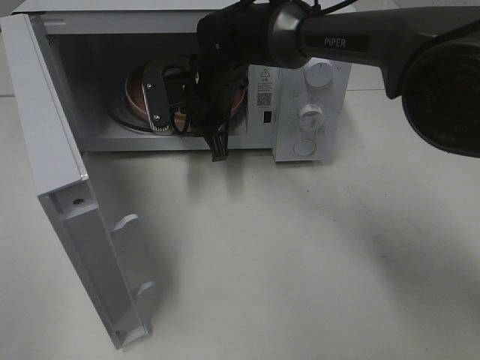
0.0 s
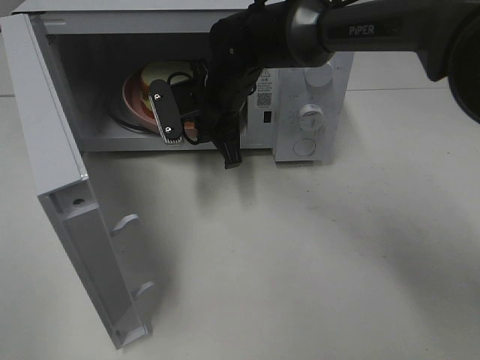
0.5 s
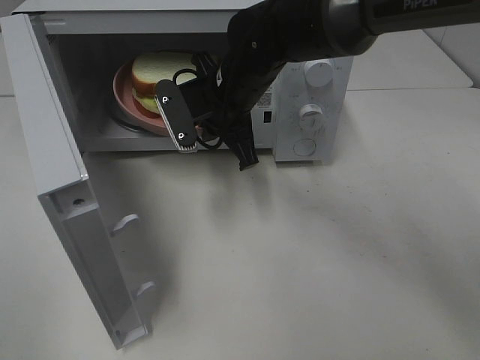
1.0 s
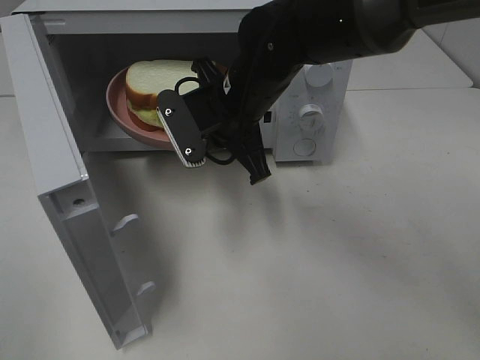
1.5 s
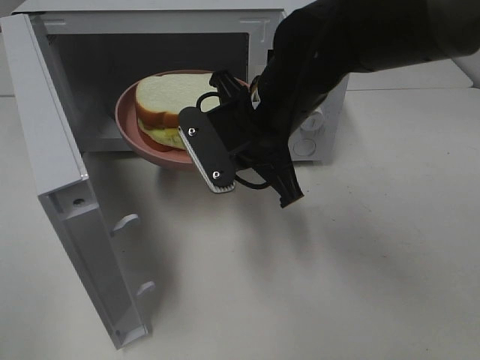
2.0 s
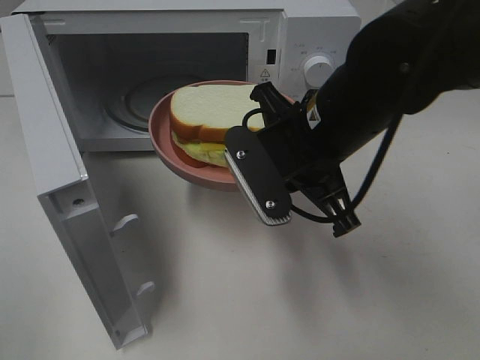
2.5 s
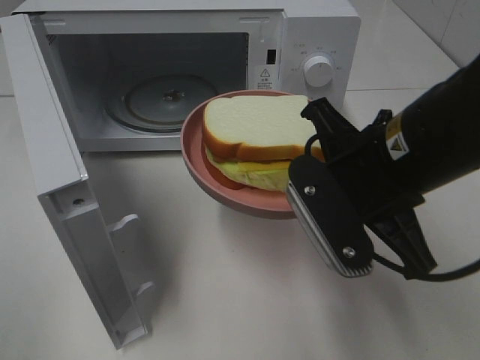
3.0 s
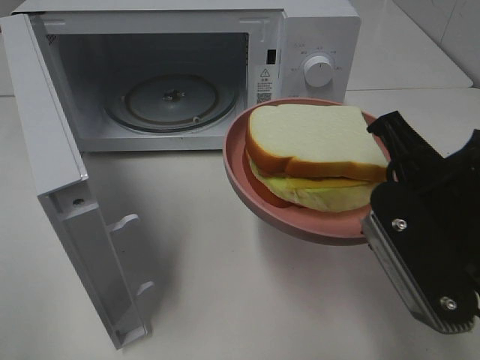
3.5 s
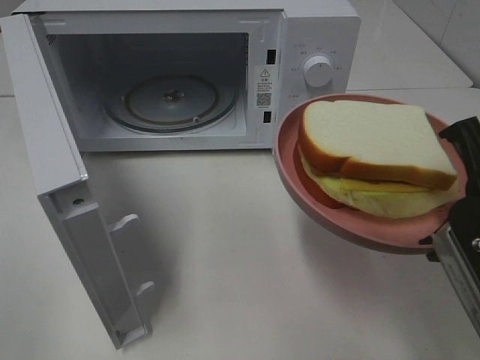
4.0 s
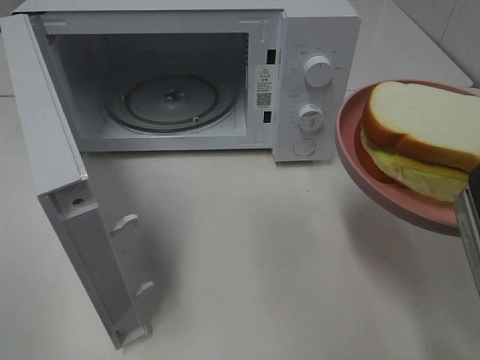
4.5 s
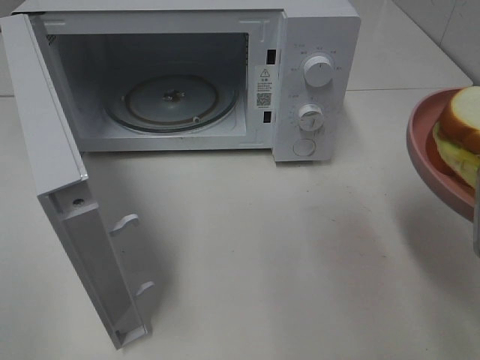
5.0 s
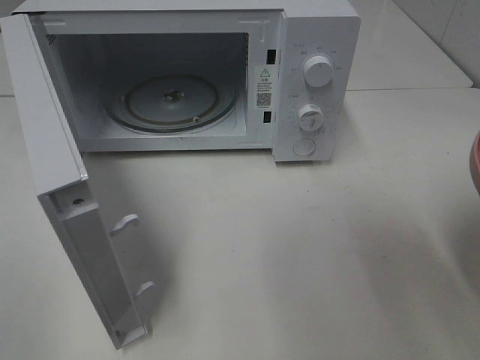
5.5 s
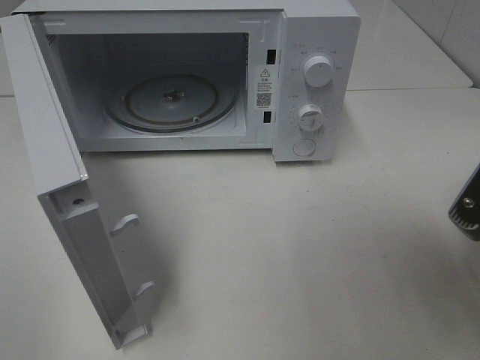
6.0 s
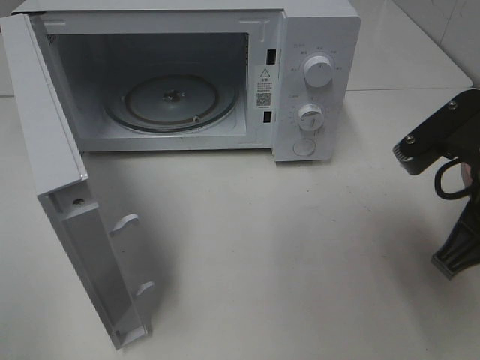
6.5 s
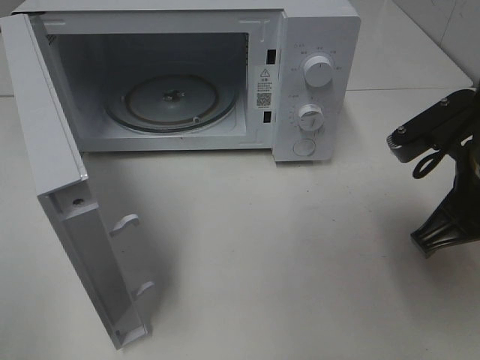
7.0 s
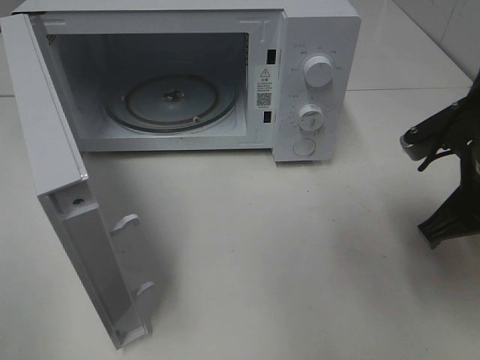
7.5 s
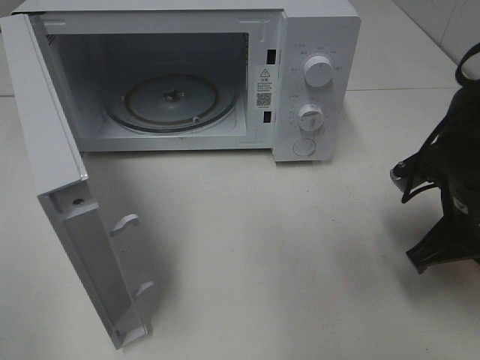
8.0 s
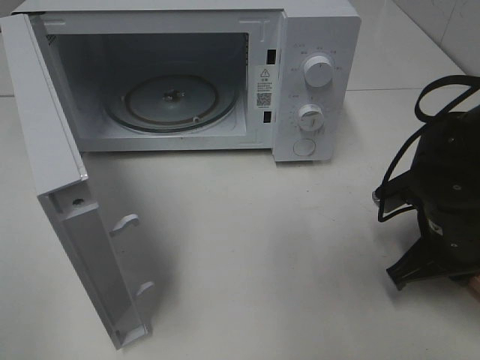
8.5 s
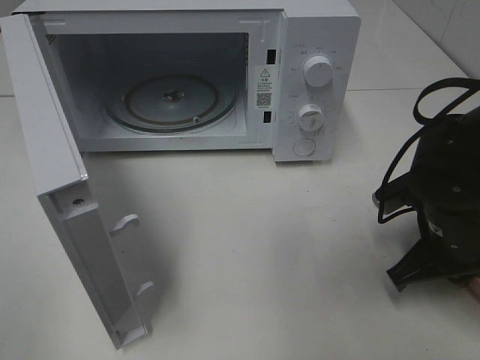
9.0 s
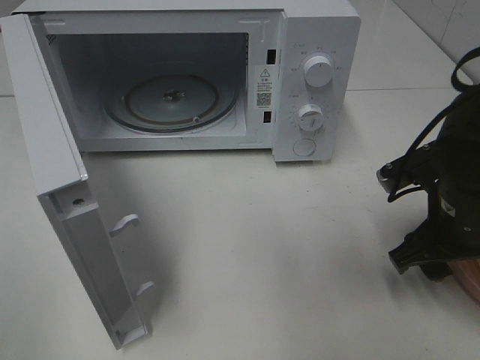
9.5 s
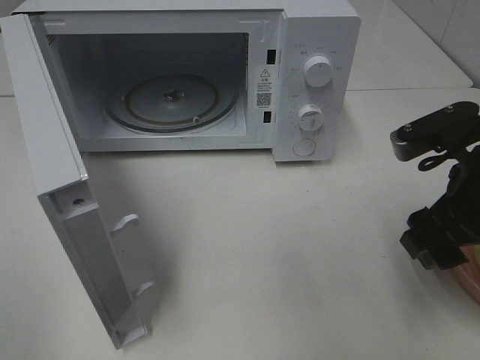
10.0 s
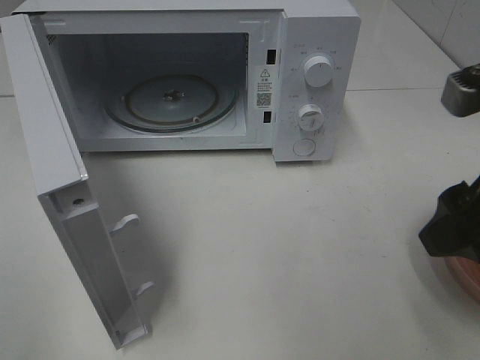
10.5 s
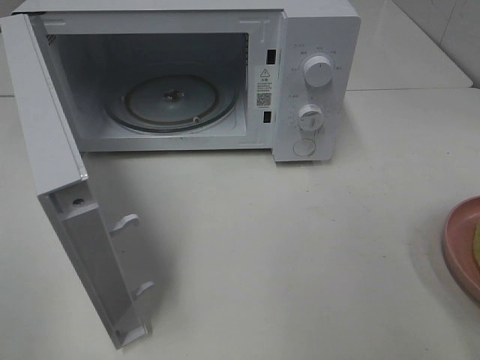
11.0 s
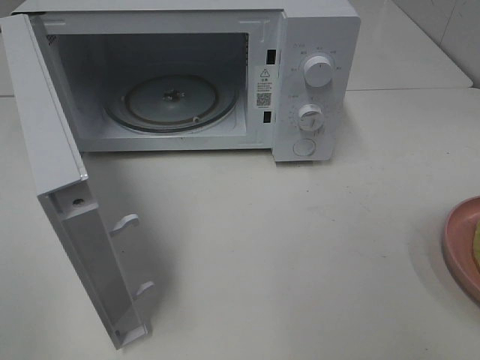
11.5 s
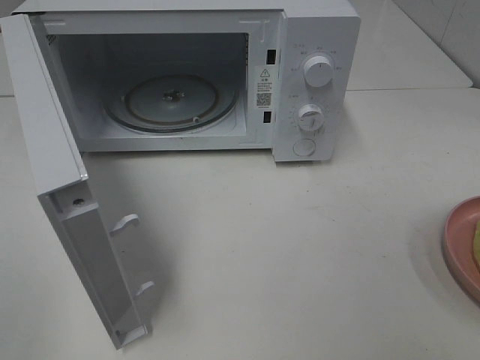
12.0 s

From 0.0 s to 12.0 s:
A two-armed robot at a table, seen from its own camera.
Task of the whole recording: Heat Sandwich.
Step, from 0.0 s to 10.0 s: Right hand: place the plate on the table.
From 0.0 s to 2.0 s: The right gripper shifts approximately 15 cm backward and to the right.
From 2.0 s to 4.0 s: The right gripper shifts about 25 cm backward and to the right.
From 6.0 s to 8.0 s: The right gripper shifts roughly 15 cm forward and downward.
From 8.0 s to 10.0 s: The right gripper goes approximately 5 cm upward, and opens up.
From 10.0 s to 12.0 s: The right gripper travels backward, upward and to the right by approximately 25 cm.

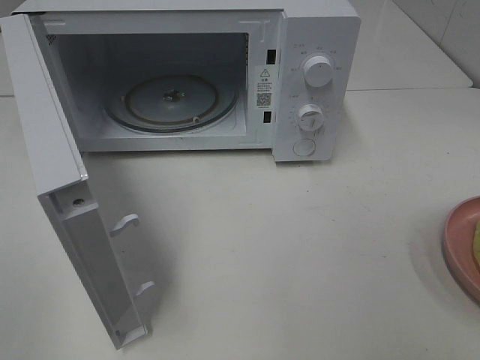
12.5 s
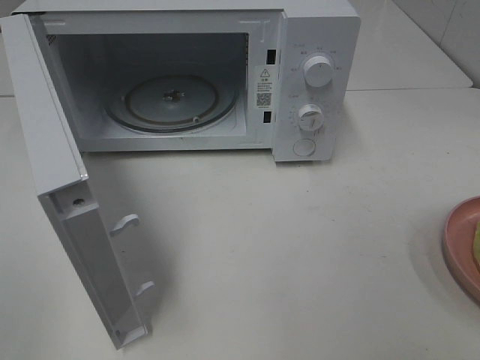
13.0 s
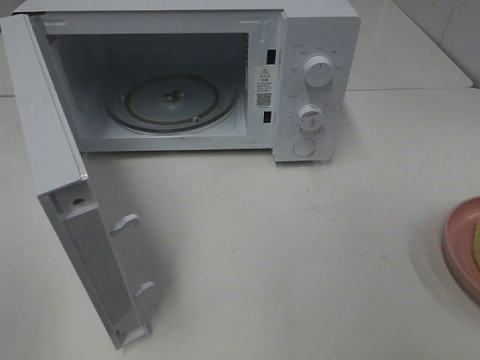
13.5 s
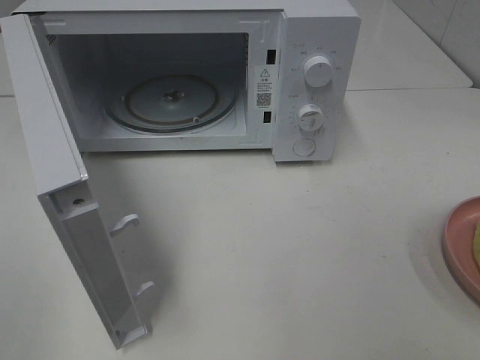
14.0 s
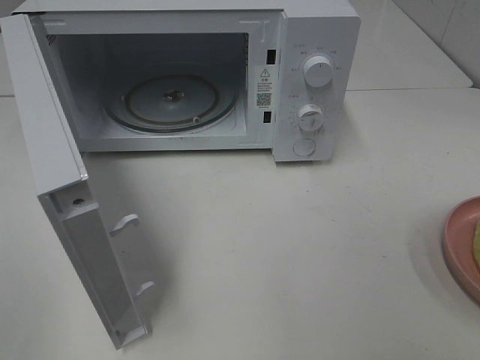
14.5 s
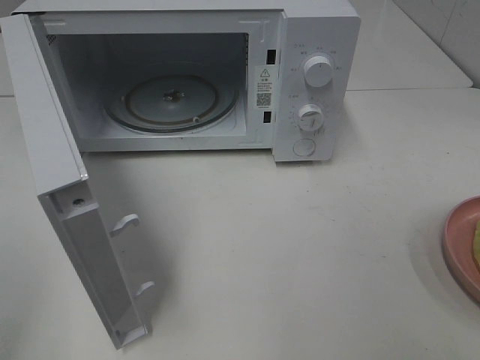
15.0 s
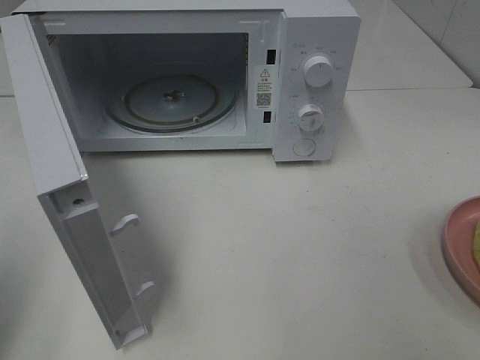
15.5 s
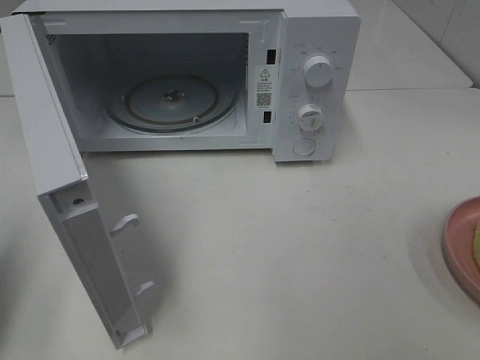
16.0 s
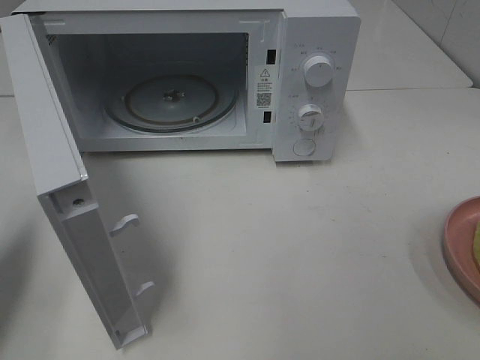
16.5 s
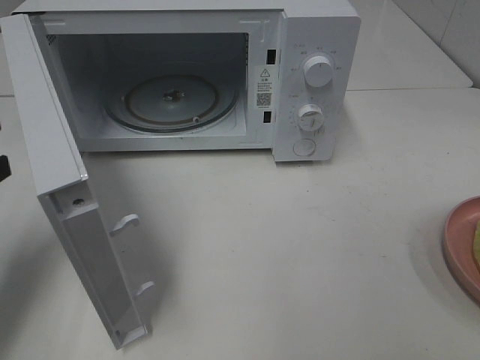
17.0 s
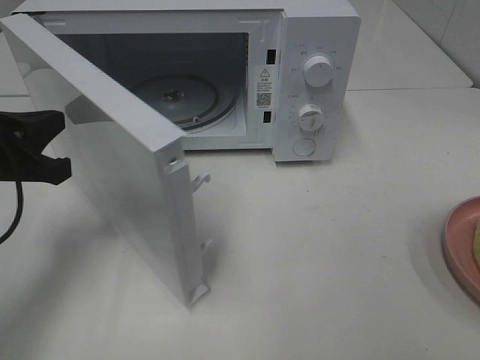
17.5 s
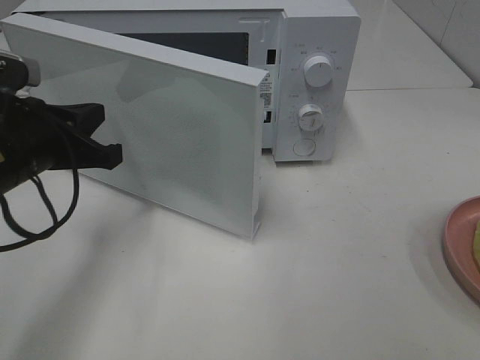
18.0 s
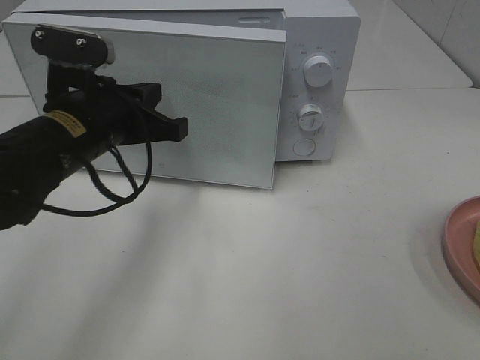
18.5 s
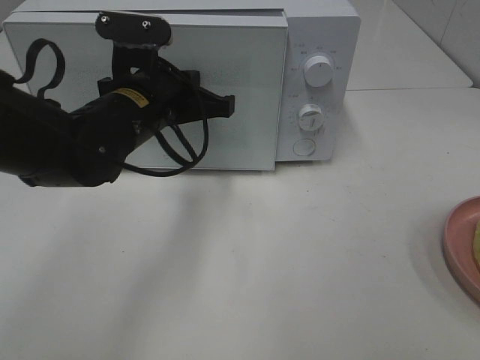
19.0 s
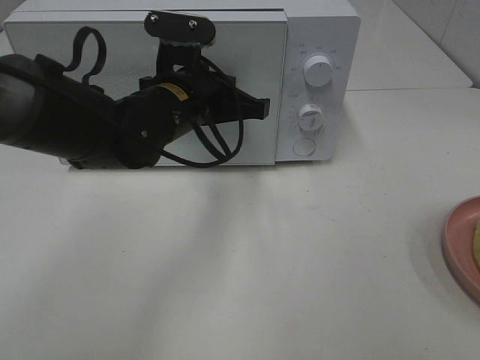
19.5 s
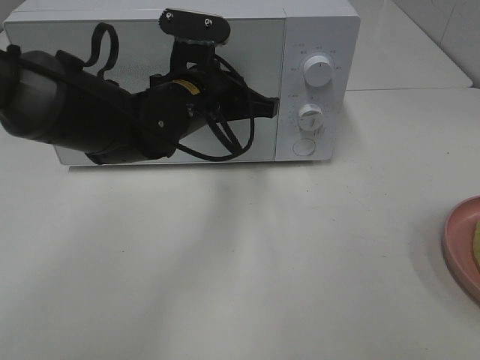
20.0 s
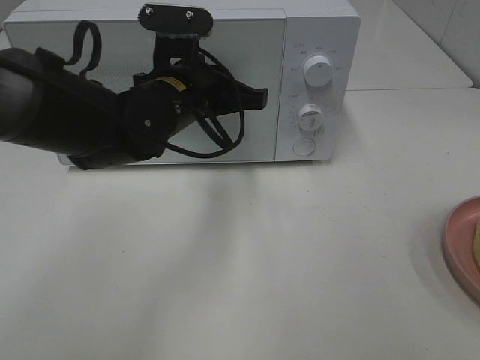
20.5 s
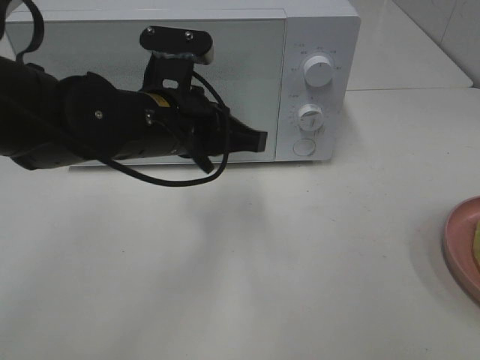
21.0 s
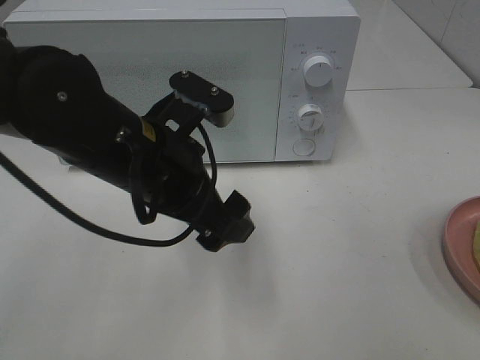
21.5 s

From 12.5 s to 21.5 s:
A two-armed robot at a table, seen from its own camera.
Task of the whole recording: Heat Sandwich.
Step, from 12.5 s to 20.0 s: Left hand: close the microwave door.
From 12.5 s to 14.5 s: Both grippers stay about where they are.
From 14.5 s to 17.0 s: The left gripper is displaced forward and downward by approximately 25 cm, and closes up.
From 17.0 s to 19.5 s: The left gripper moves to the right and forward, some 25 cm.
From 19.5 s to 21.5 s: The left gripper is displaced backward by some 10 cm, and opens its fingers.

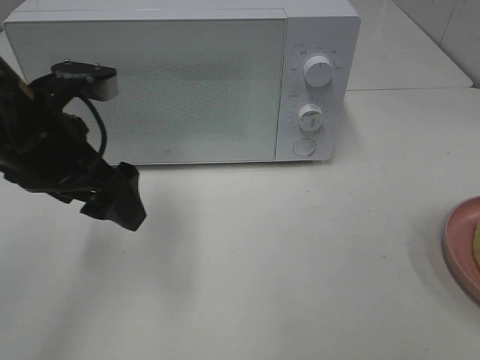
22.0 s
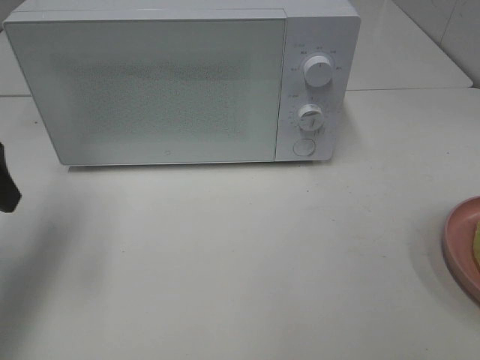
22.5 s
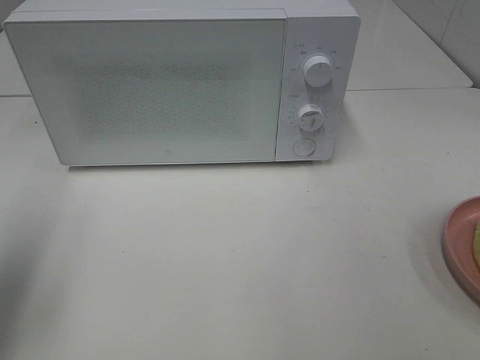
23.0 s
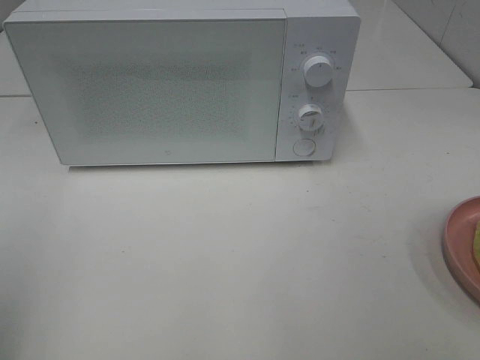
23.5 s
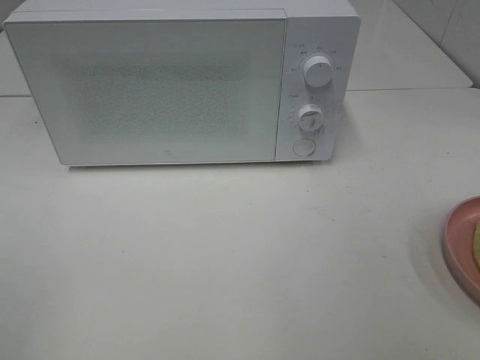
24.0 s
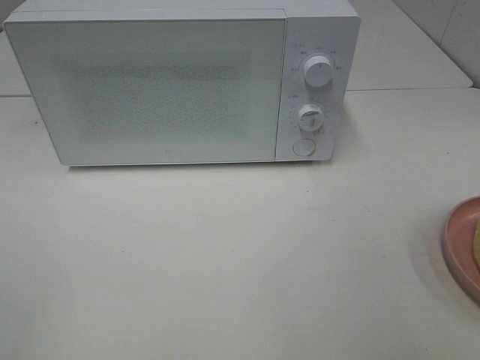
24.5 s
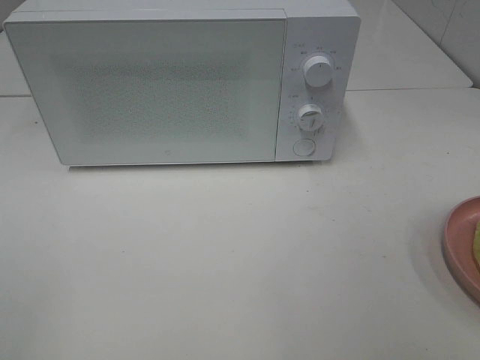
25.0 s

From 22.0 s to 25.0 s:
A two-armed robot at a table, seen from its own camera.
Task of the whole recording: Heat Sandwich.
From 22.0 s to 23.5 s: The left gripper travels backward and to the left by some 25 cm.

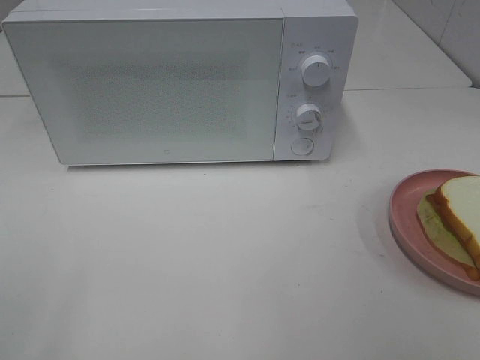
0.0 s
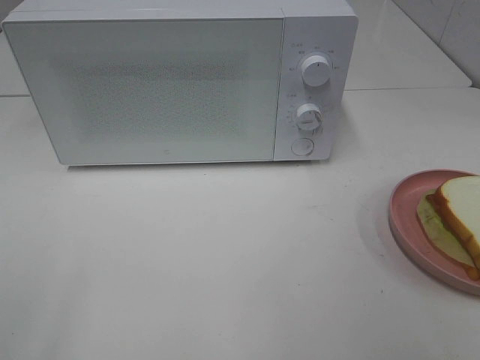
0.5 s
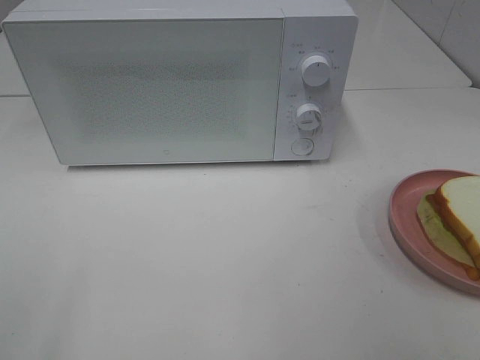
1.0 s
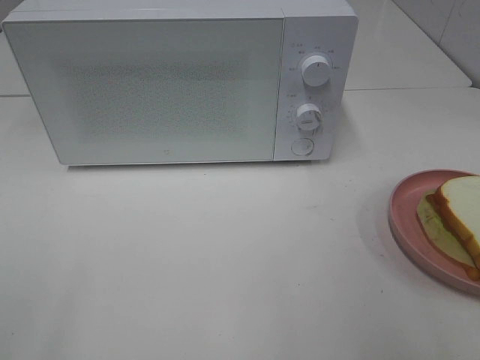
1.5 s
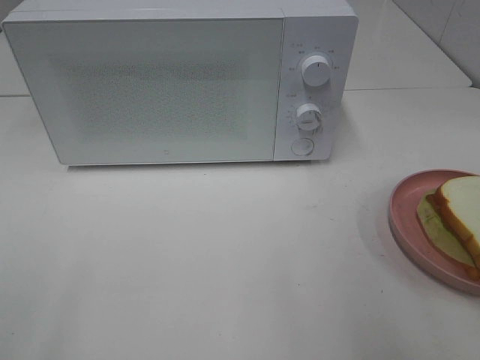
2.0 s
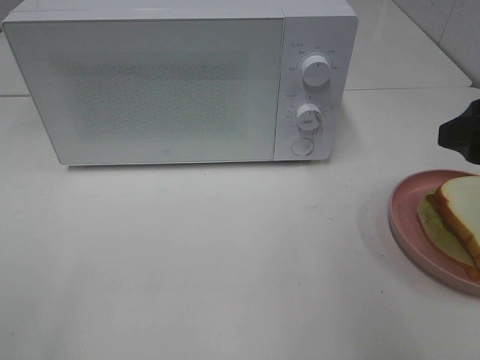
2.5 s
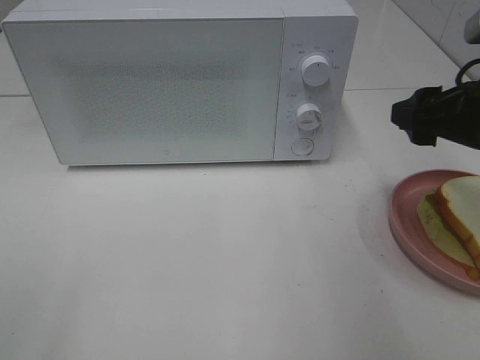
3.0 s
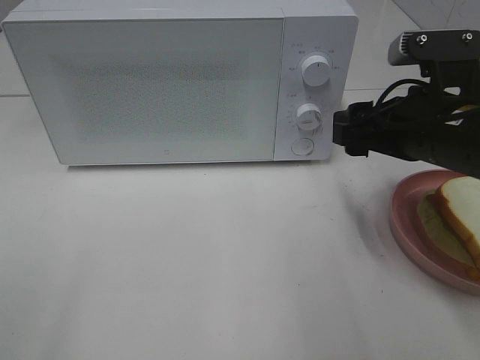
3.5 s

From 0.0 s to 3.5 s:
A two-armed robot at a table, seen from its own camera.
Task of the whole recording: Heat Sandwich.
From 2.0 s to 3.5 s: The right gripper goes approximately 15 cm forward, to the left and downward.
